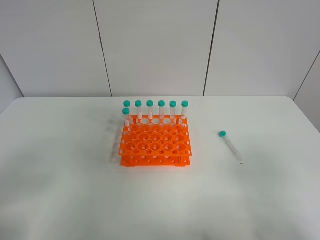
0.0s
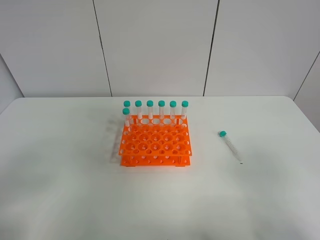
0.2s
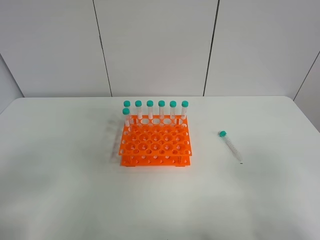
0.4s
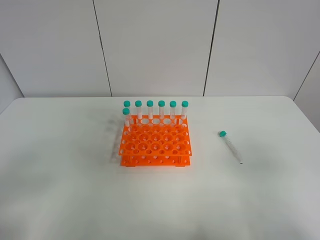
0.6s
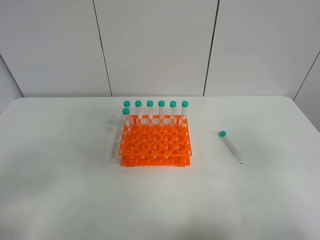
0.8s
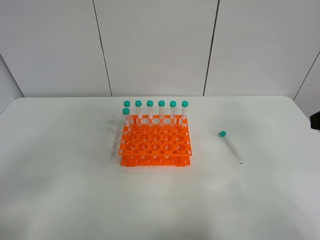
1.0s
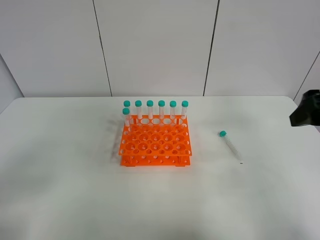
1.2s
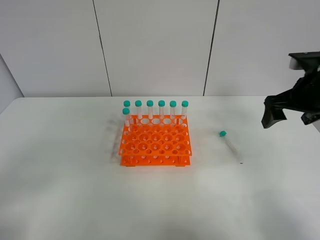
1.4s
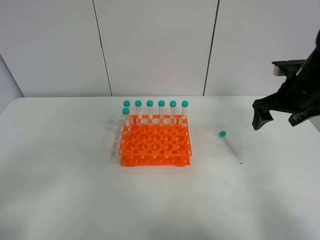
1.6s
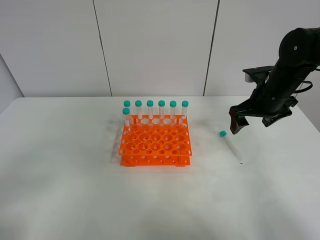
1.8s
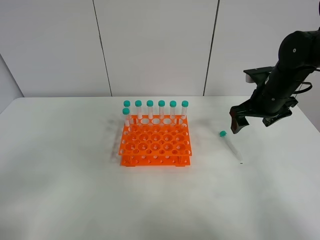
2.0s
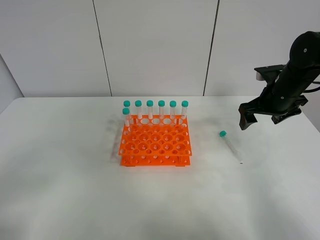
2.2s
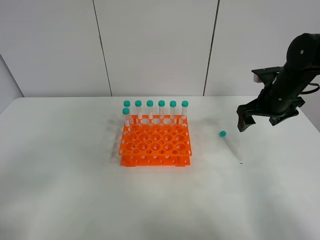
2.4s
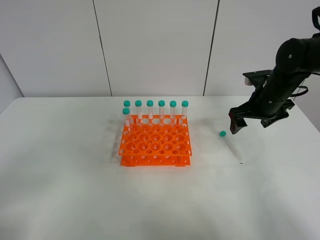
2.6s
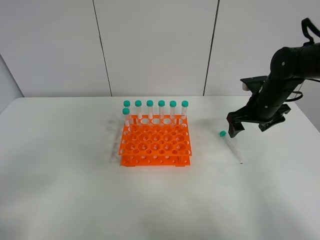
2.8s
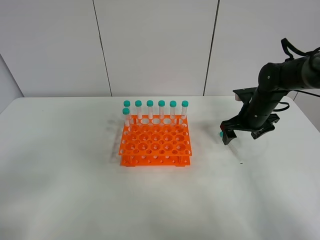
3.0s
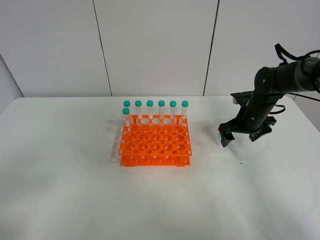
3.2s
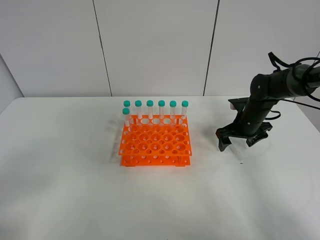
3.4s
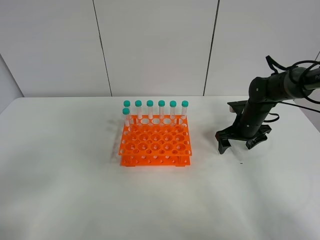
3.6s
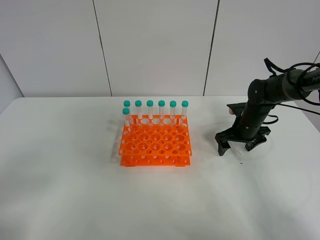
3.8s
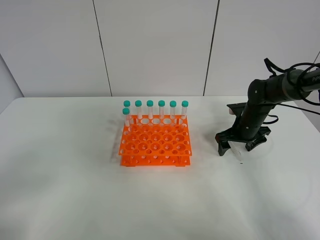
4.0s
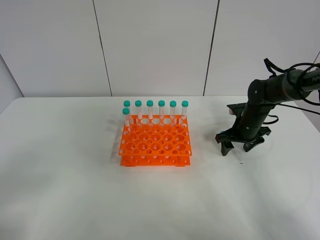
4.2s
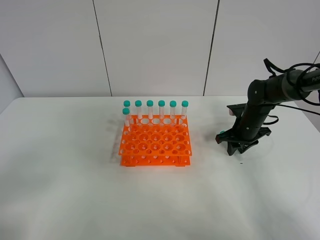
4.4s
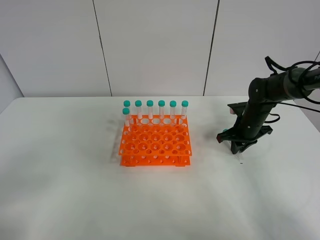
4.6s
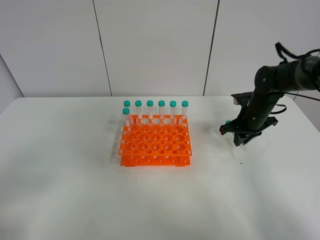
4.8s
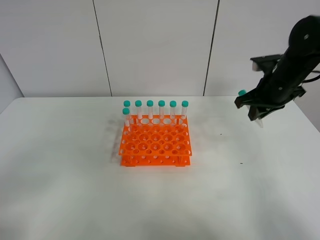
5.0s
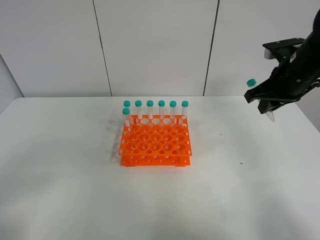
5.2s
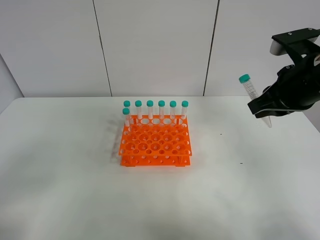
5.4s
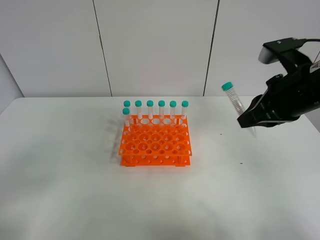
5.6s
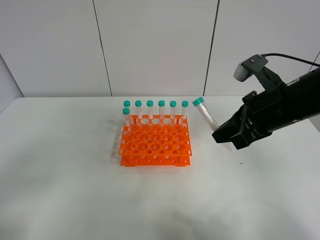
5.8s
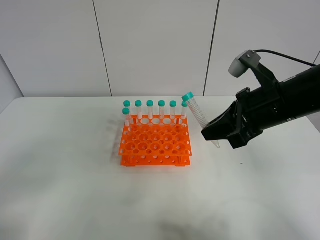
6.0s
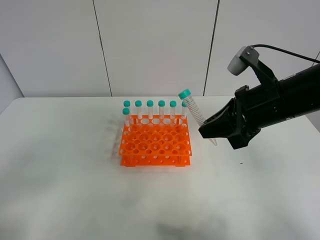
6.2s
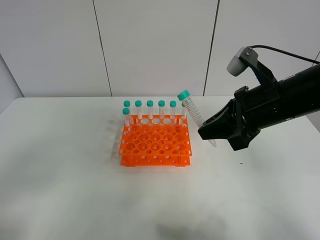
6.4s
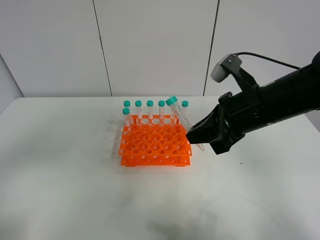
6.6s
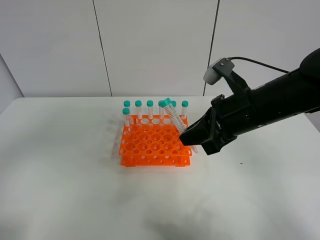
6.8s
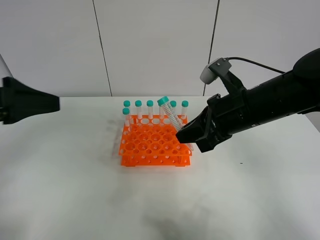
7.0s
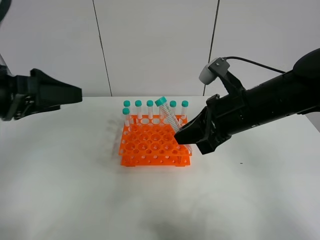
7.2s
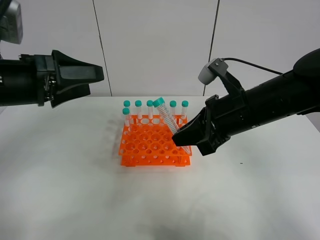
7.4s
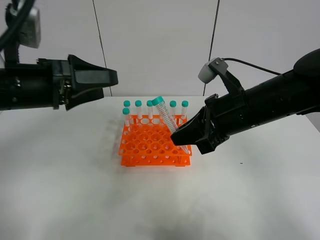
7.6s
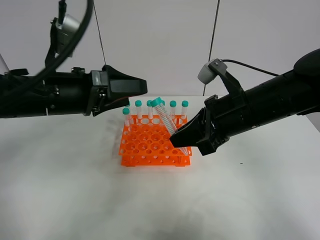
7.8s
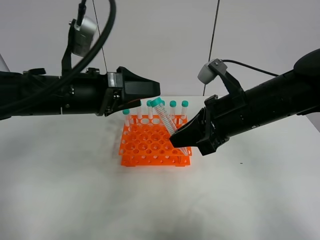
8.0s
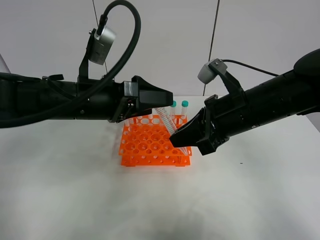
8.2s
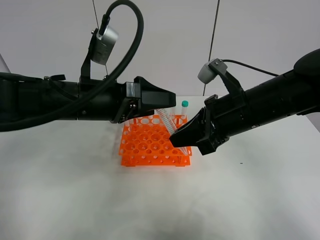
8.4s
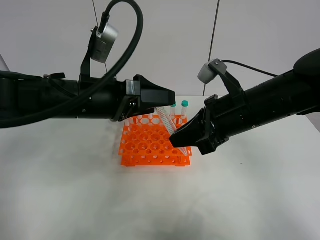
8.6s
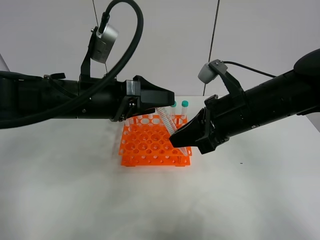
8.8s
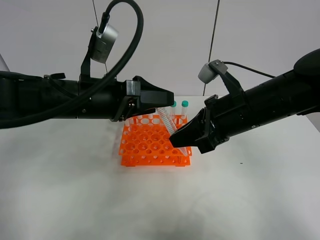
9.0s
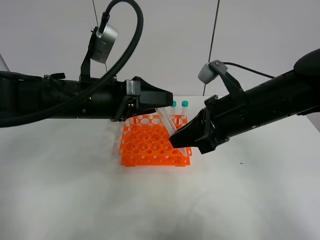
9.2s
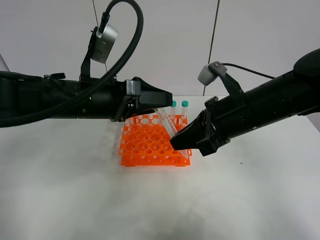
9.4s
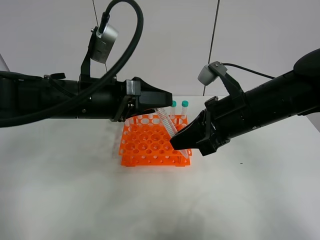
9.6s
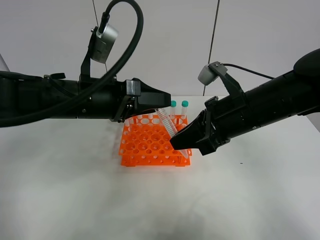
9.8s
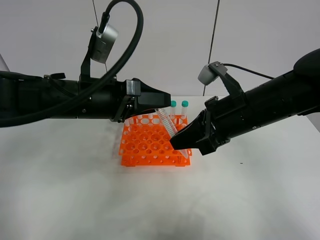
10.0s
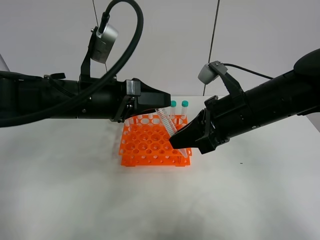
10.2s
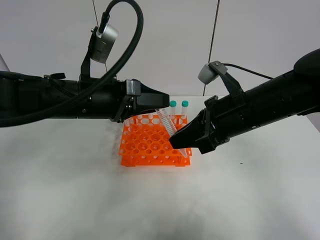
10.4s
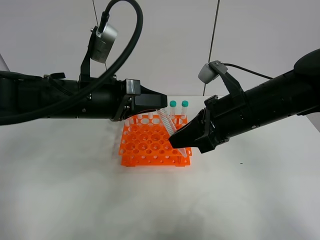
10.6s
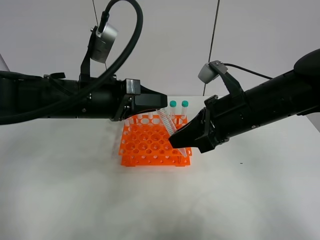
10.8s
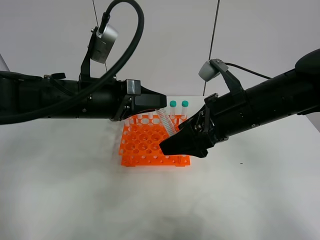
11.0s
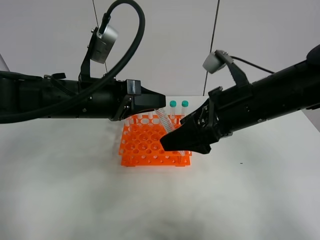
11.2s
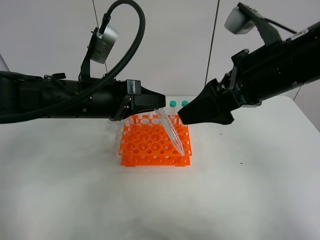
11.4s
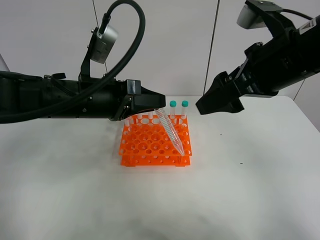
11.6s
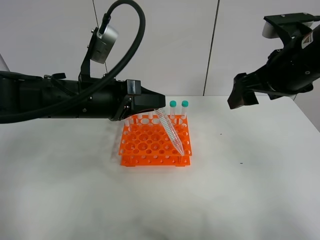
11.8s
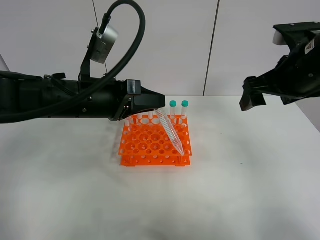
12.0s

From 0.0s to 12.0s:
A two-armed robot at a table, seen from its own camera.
Task of the whole recording: Put the test tube on the table back onto the test tube rack.
Step, from 0.0s to 5.0s: Pick up the test tube with the right gripper.
Step, from 5.2s to 11.6s: Move the test tube from the right gripper to the left gripper.
From 0.0s to 1.6s: The right gripper shifts about 35 cm forward.
From 1.6s to 3.0s: The right gripper heads downward and forward, covering about 10 cm.
From 3.0s to 4.4s: The right gripper heads downward, covering approximately 5 cm, and closes up.
From 4.4s to 6.0s: The right gripper goes some 25 cm upward and backward.
From 6.0s to 7.6s: The left gripper is displaced forward and to the right by roughly 25 cm.
From 7.6s to 9.0s: The left gripper shifts about 10 cm to the right.
From 9.0s to 10.4s: The left gripper closes.
From 10.4s to 12.0s: The right gripper is displaced to the right and upward by some 10 cm, and opens its fingers.

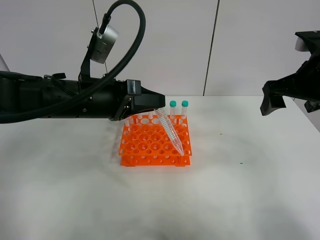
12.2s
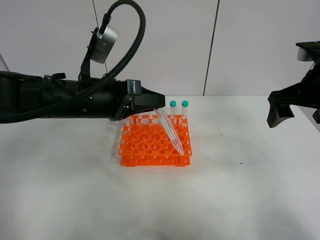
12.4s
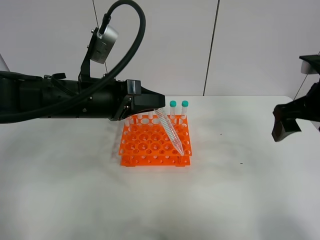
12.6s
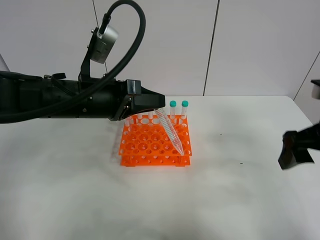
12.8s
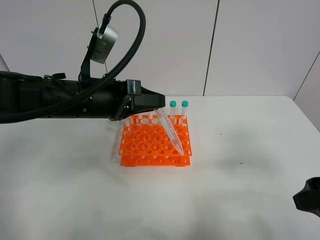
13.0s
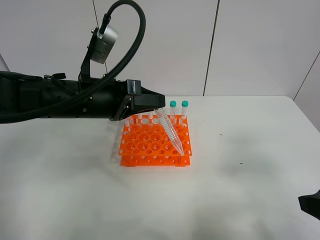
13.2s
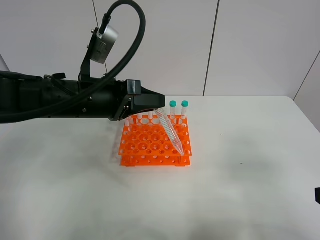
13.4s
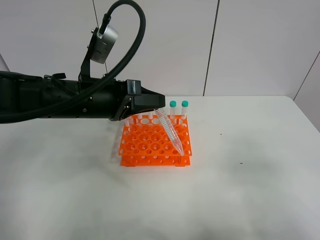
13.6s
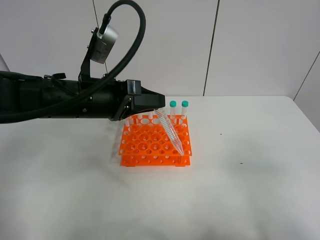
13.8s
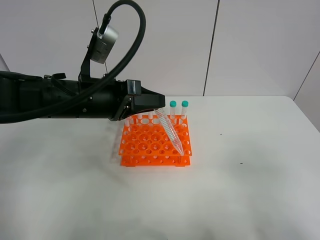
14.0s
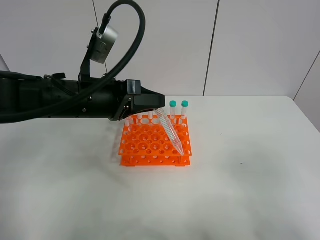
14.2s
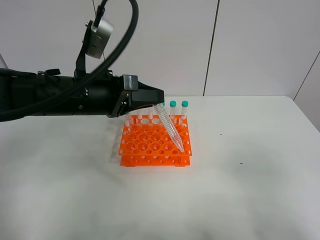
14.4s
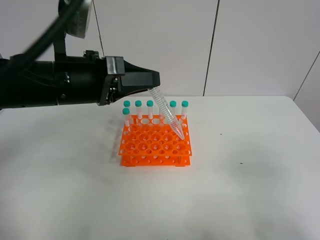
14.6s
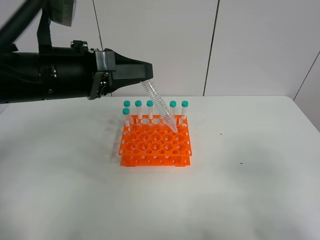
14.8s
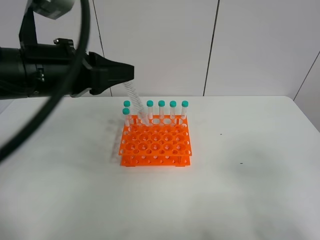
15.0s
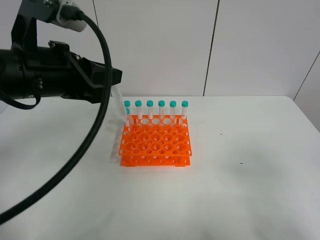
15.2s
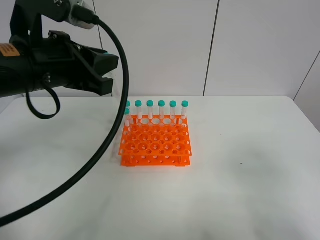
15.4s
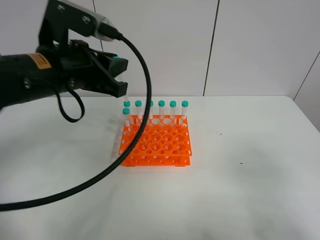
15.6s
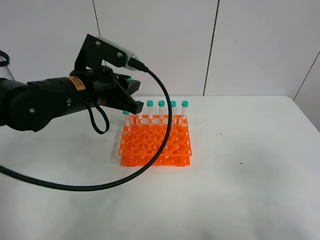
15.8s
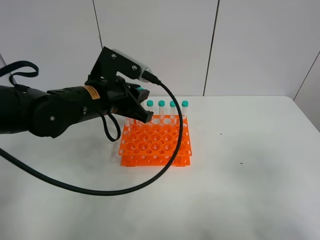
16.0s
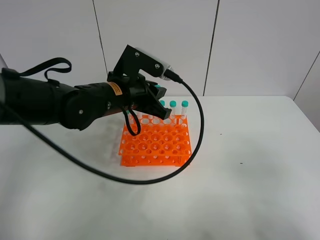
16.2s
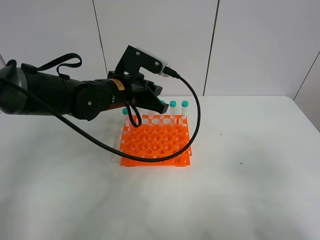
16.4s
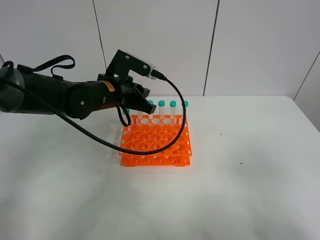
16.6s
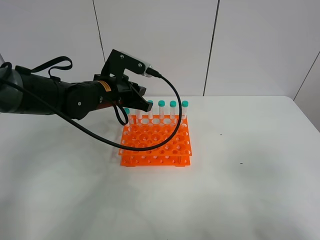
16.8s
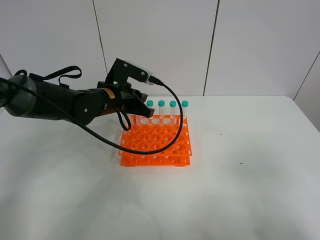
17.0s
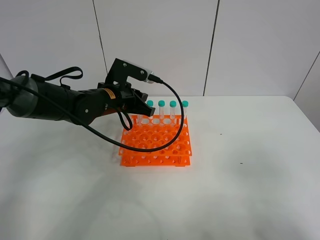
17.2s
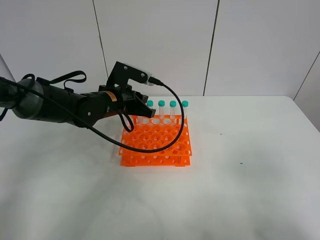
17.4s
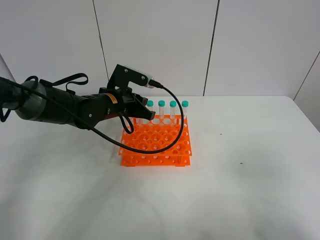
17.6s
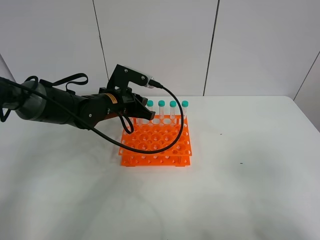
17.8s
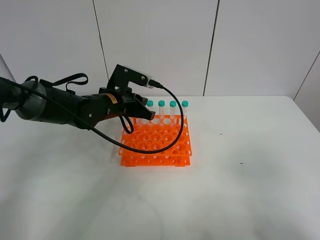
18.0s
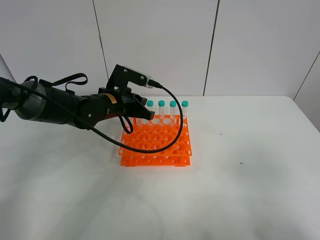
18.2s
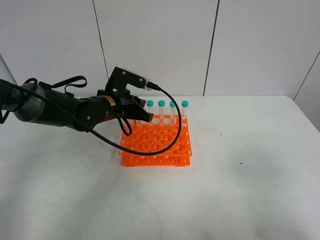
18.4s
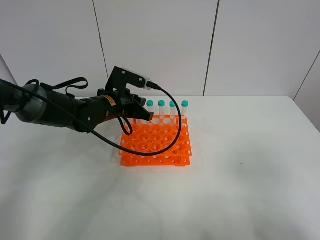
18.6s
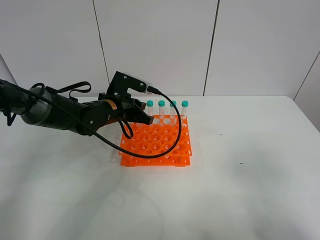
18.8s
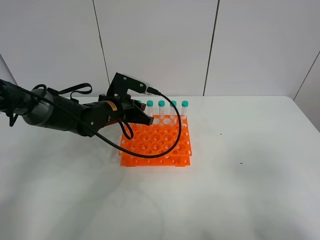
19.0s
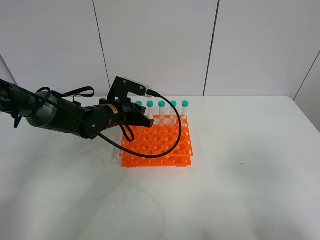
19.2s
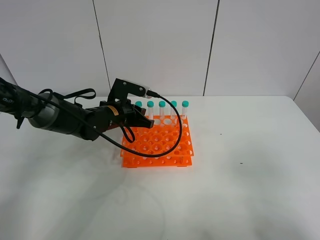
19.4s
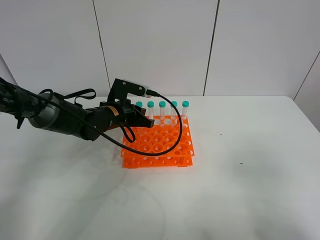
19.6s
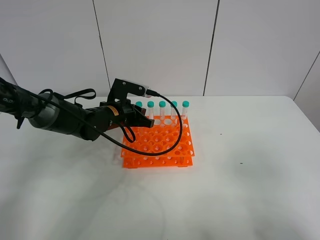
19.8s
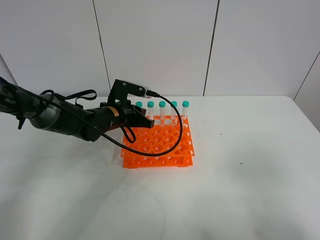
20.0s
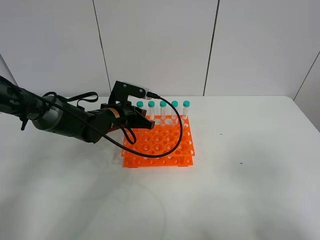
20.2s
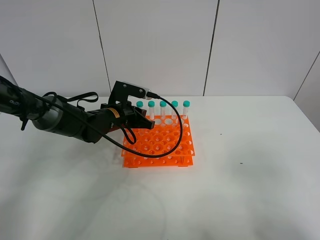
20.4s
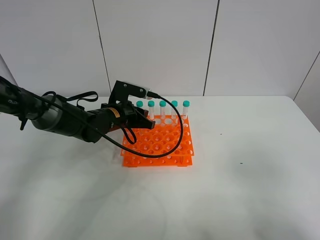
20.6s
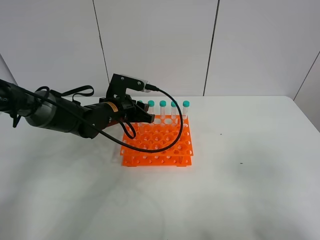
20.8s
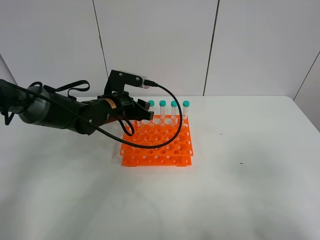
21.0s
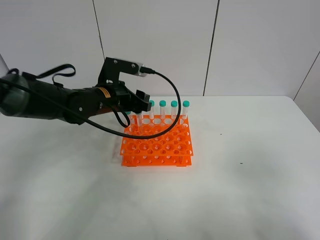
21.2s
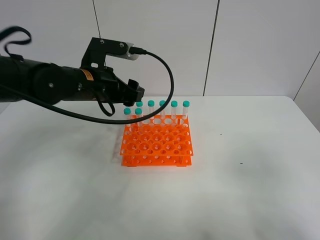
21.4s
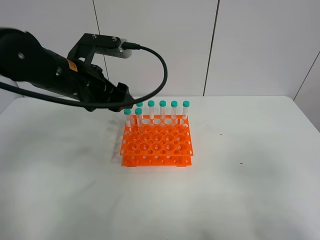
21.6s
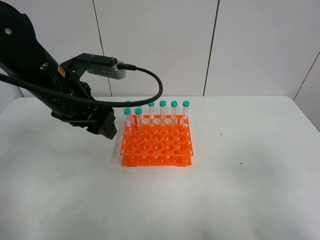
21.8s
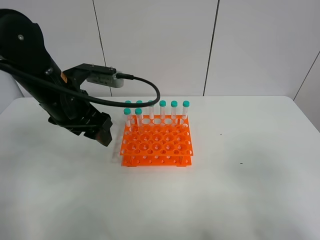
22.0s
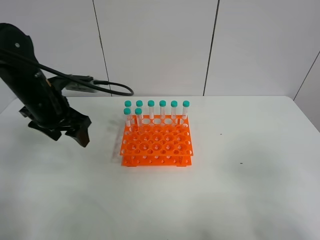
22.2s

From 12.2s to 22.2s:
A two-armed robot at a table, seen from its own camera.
Task of the whole recording: Put the test tube on the table back onto the test tube rack.
Step, from 12.2s to 21.6s: Place the test tube on the test tube rack with the left gripper.
From 12.2s to 13.6s: The right gripper travels backward by approximately 25 cm.
From 13.6s to 15.0s: The left gripper is displaced upward by some 5 cm.
From 15.0s to 16.4s: The left gripper shifts about 15 cm forward, downward and to the right.
From 16.4s to 18.0s: The left gripper changes place by approximately 5 cm.
From 18.0s to 19.4s: There are only small adjustments of the grippers.
From 19.4s to 20.8s: The left gripper opens its fingers.
From 20.8s to 22.2s: The left gripper shifts approximately 15 cm to the left and upward, and opens.
